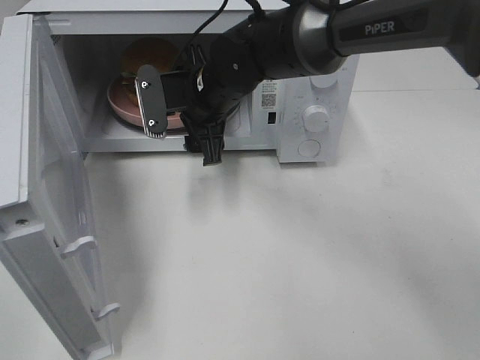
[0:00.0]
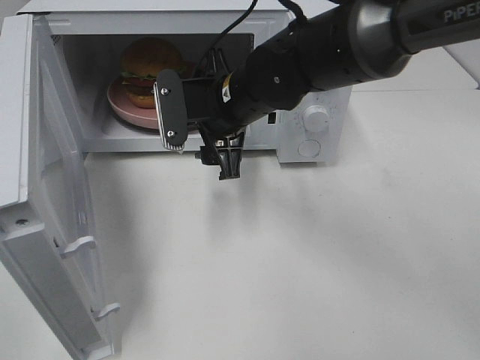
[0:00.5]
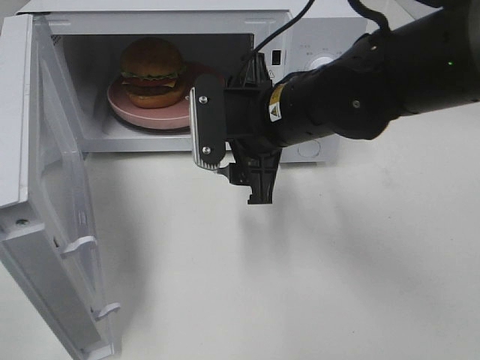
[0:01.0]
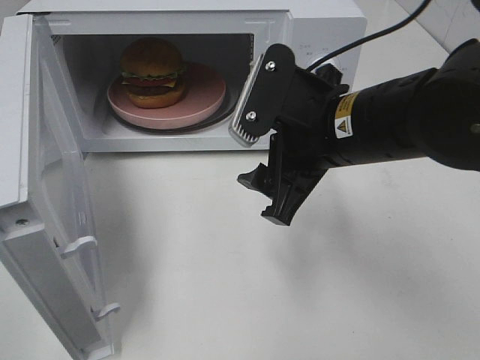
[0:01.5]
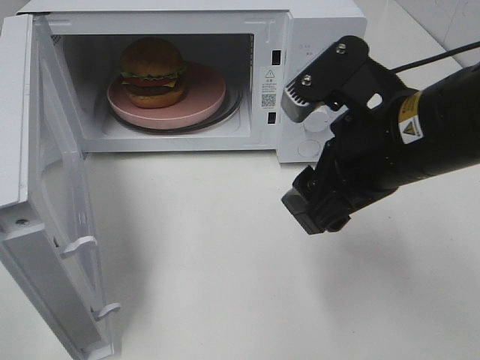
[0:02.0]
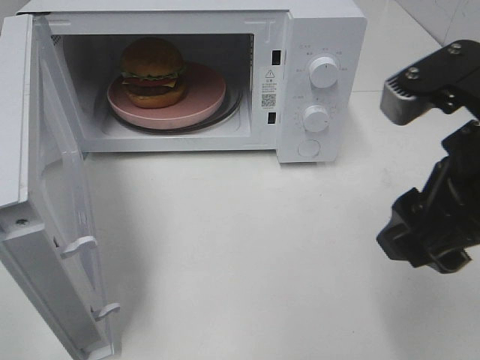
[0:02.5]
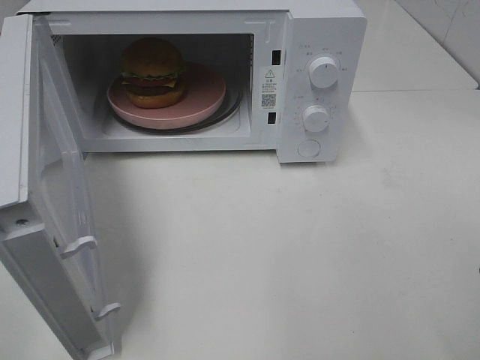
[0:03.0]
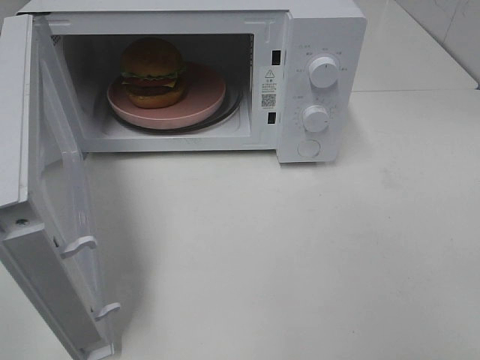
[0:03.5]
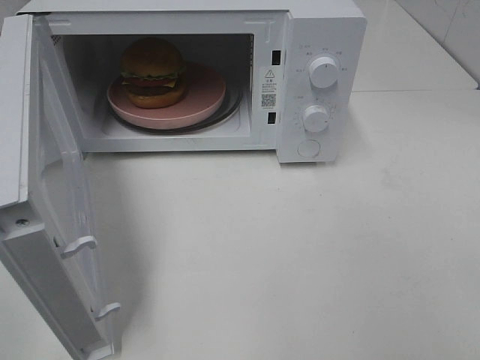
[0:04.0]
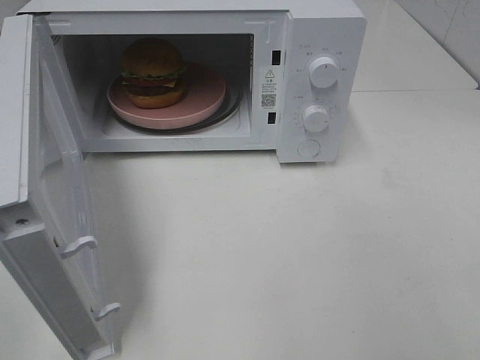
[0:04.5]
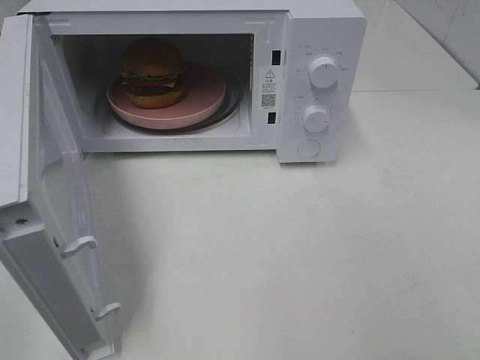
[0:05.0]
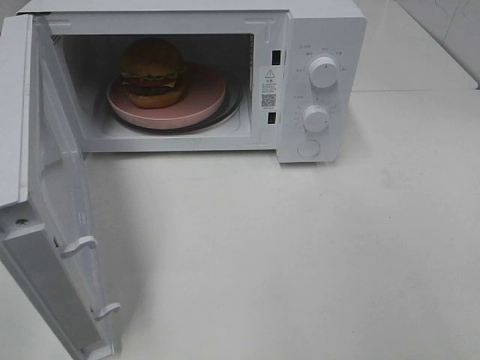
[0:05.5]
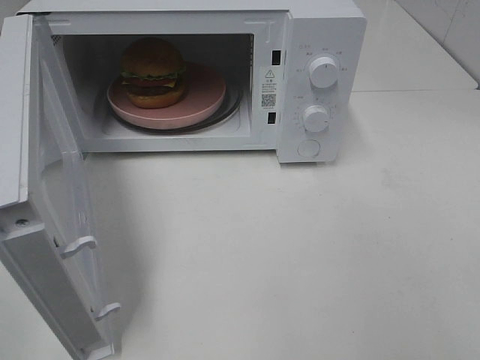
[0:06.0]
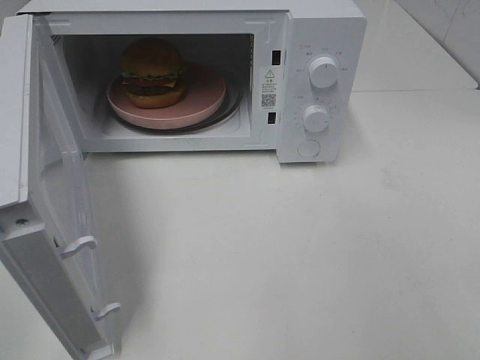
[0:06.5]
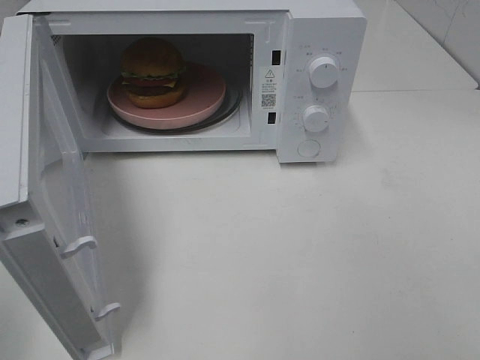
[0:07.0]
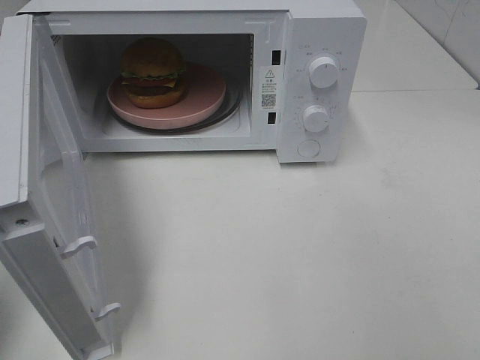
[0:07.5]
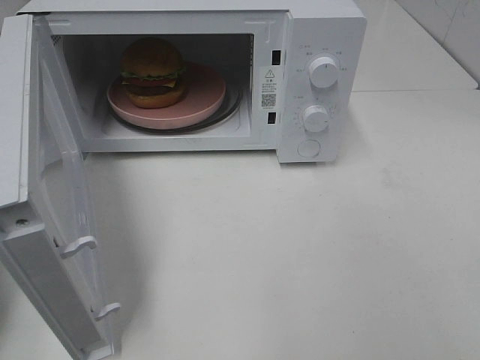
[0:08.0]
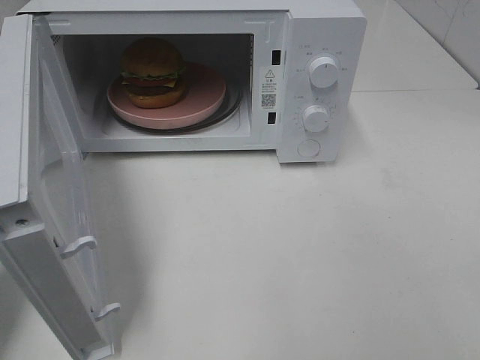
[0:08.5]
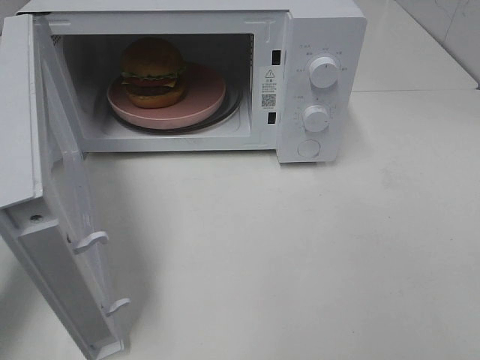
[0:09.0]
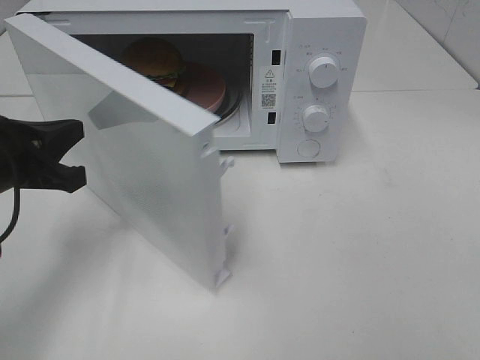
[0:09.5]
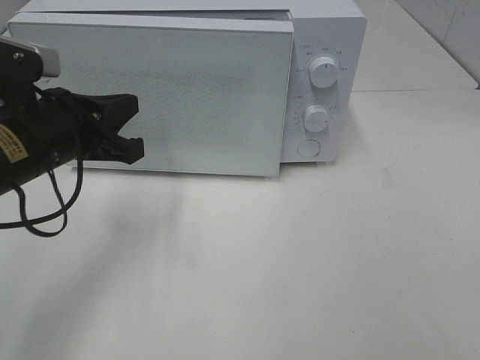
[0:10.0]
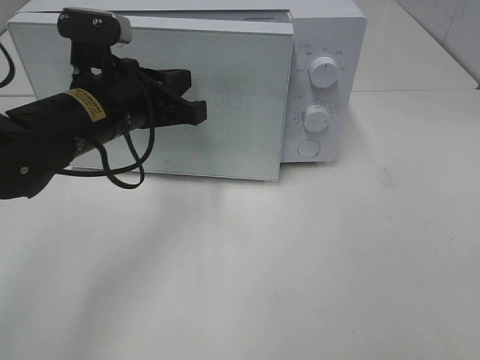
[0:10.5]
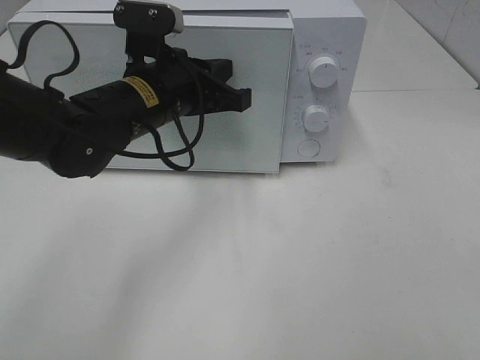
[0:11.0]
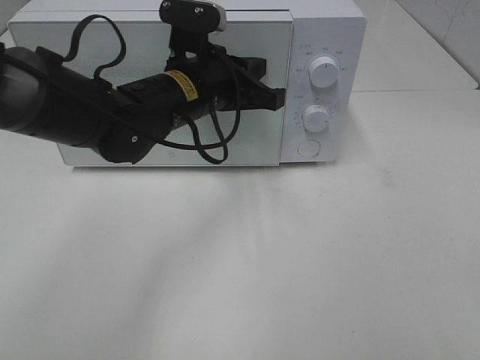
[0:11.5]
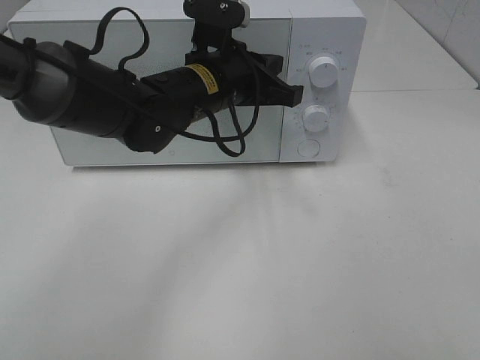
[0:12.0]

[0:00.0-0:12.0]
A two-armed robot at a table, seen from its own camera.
Task of the whole recording: Heat the burger.
0:00.0 to 0:02.0: The right gripper moves backward and to the right, some 25 cm.
0:02.0 to 0:04.0: The right gripper goes roughly 25 cm backward and to the right.
0:08.0 to 0:10.0: The left gripper heads to the right and forward, covering roughly 20 cm.
0:10.0 to 0:12.0: The left gripper travels to the right and forward by some 20 cm.

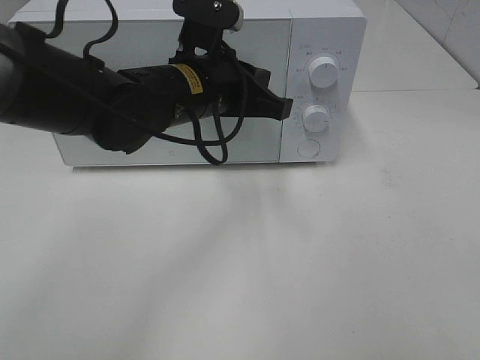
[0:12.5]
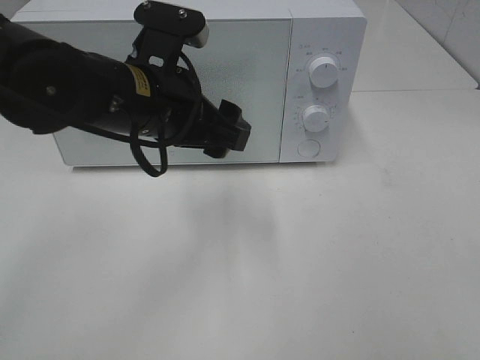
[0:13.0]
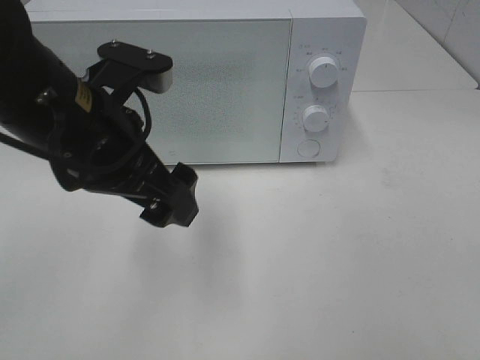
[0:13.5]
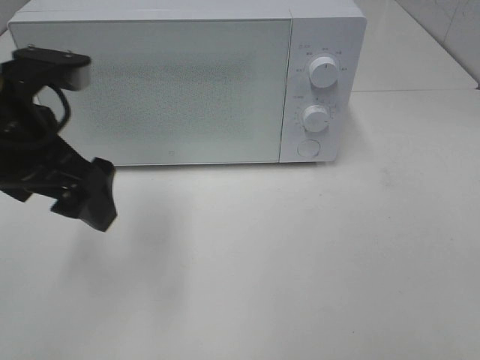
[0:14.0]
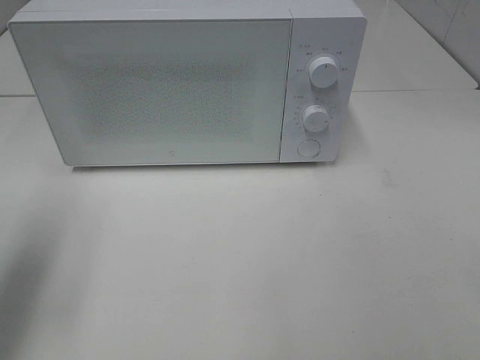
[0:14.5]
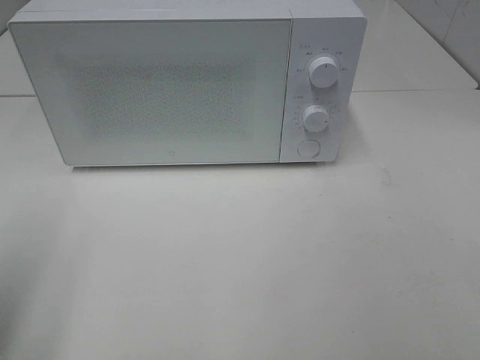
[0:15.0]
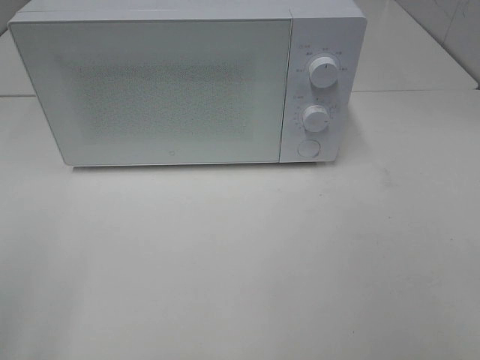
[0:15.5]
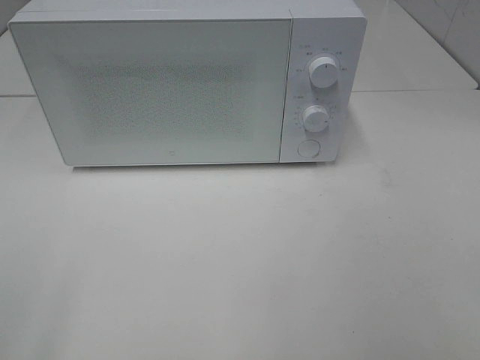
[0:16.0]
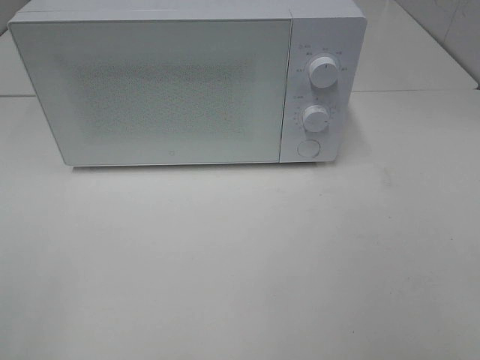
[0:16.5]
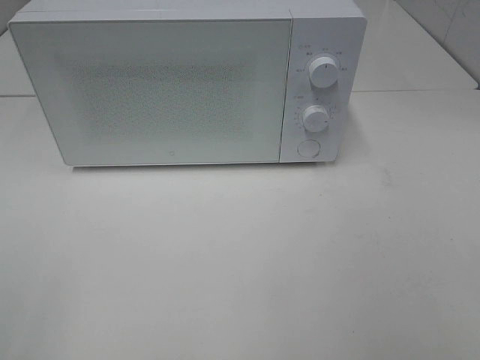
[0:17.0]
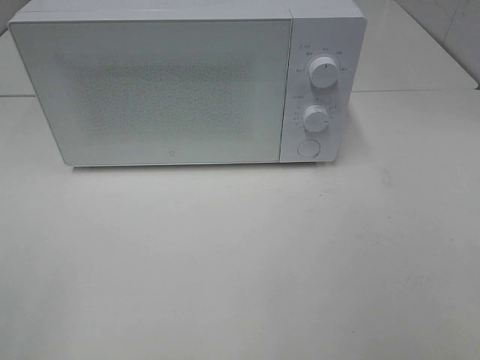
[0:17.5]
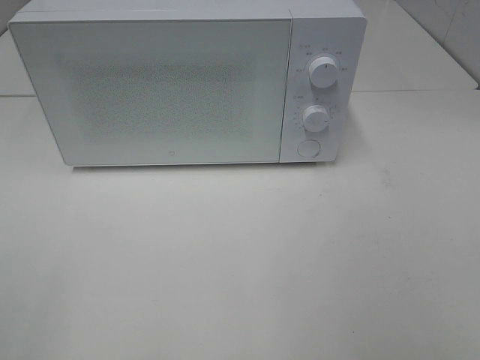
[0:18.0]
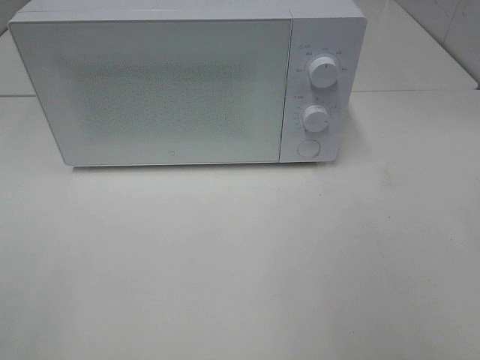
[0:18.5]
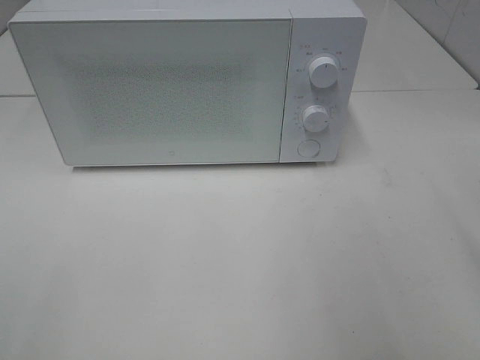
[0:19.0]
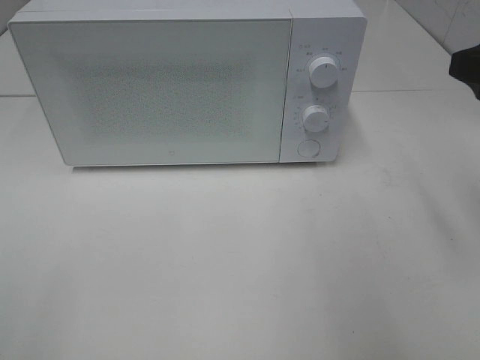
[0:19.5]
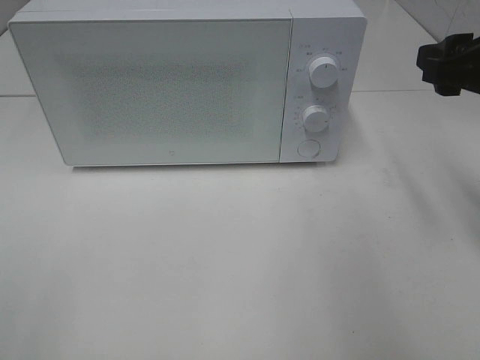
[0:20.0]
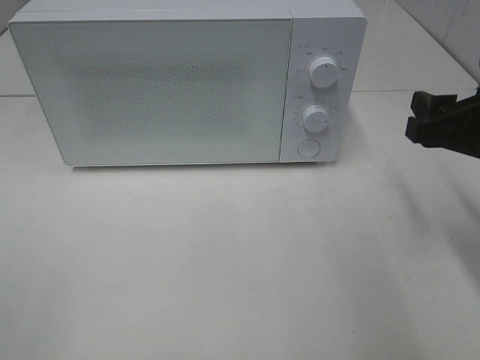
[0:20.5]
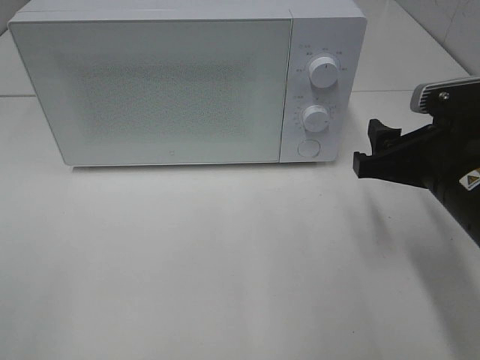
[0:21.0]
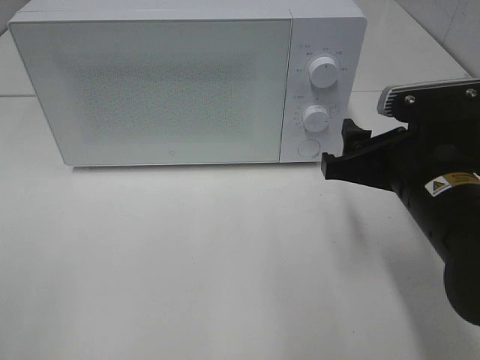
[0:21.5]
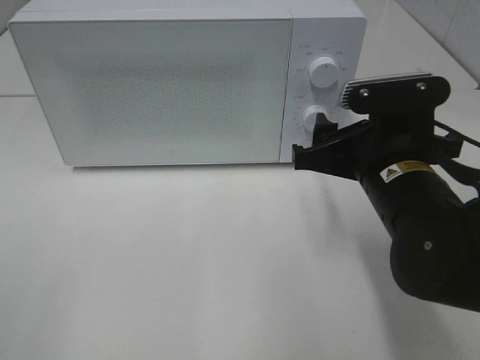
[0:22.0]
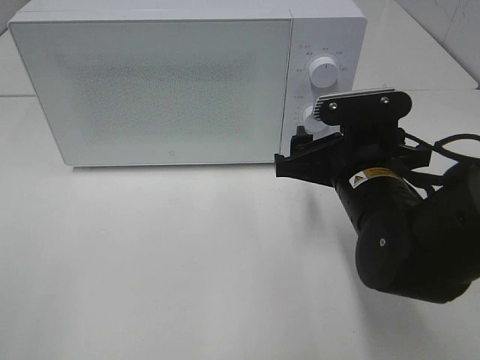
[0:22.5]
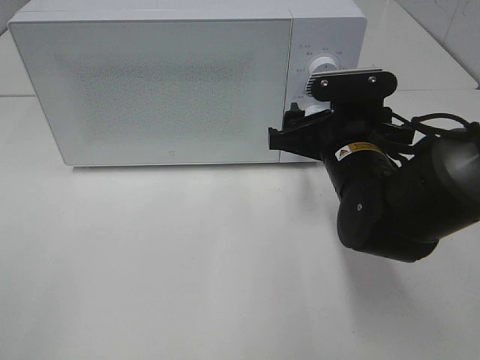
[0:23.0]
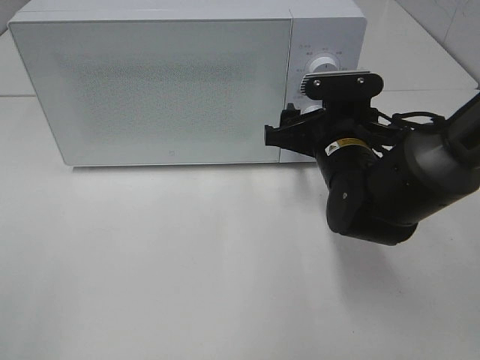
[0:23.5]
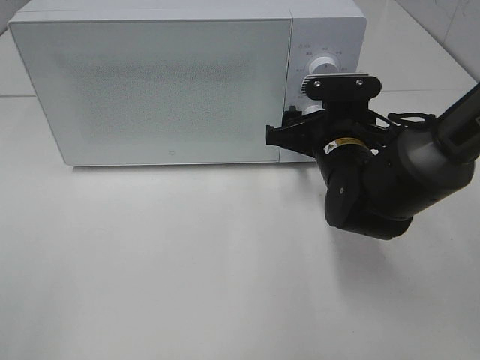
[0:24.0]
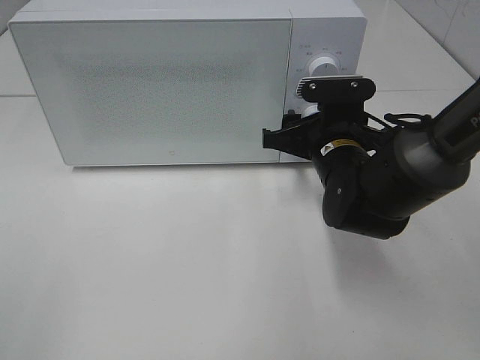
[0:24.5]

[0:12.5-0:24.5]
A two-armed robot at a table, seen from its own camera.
Task of the whole recording: Heat the burger.
0:12.5 to 0:14.5: The left gripper goes roughly 30 cm to the left and backward, and opens.
0:14.5 to 0:16.5: The left gripper is displaced backward by roughly 20 cm.
0:18.5 to 0:20.5: The right gripper moves forward and downward, roughly 20 cm.
0:20.5 to 0:22.5: The right gripper heads to the left and downward, covering some 15 cm.
0:22.5 to 0:24.5: The right gripper goes about 10 cm forward.

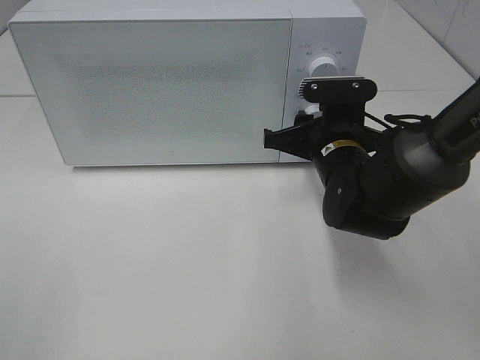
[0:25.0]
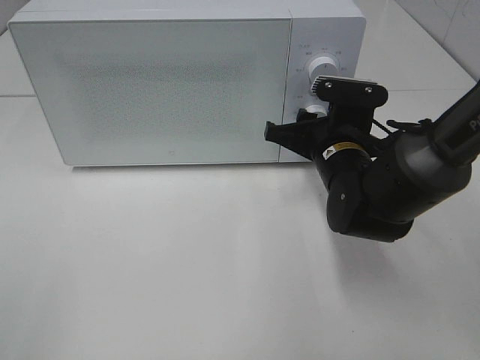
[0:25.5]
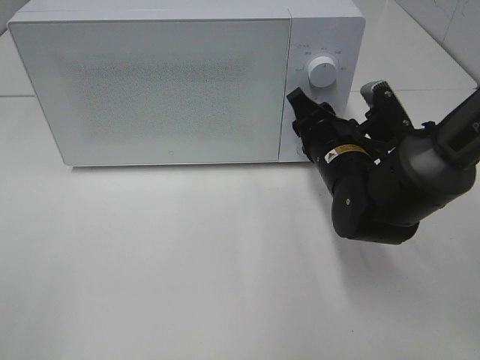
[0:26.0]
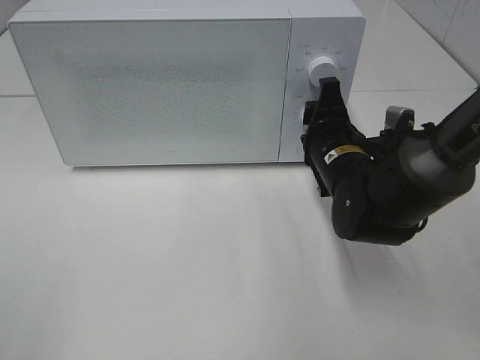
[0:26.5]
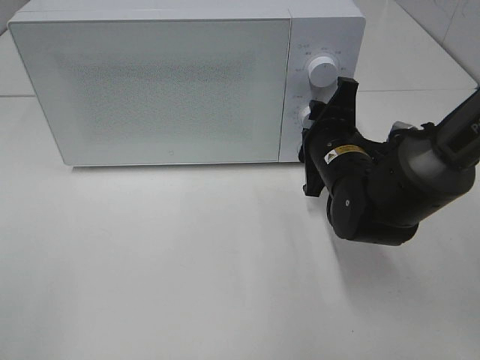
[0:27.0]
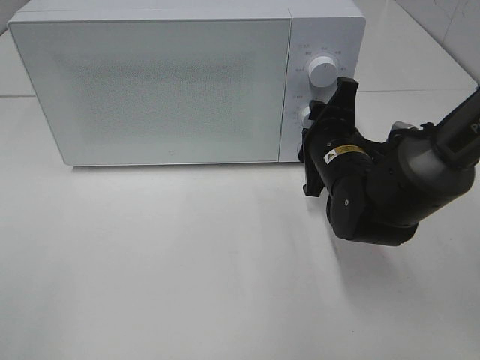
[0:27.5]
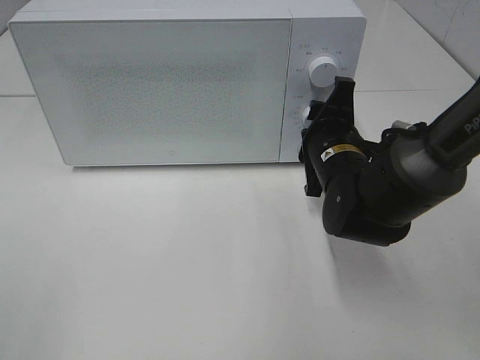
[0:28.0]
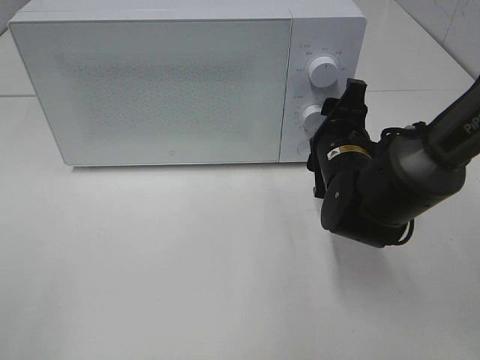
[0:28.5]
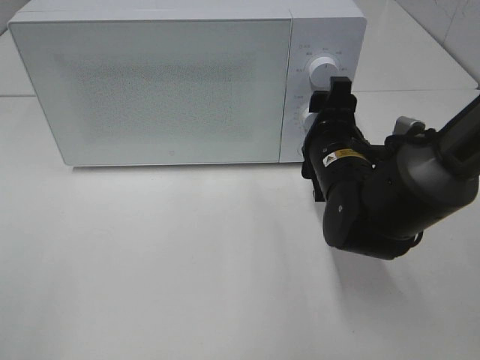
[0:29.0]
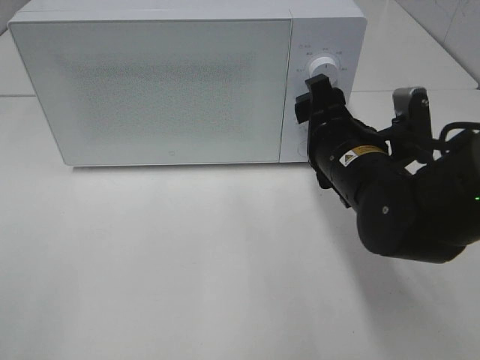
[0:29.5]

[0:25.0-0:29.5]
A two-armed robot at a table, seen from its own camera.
Task of the whole recording: Heat the burger.
Step, 0:25.0 to 0:28.0: Right hand: twist timer button.
0:27.0 to 0:29.5: The right gripper goes about 5 cm backward.
